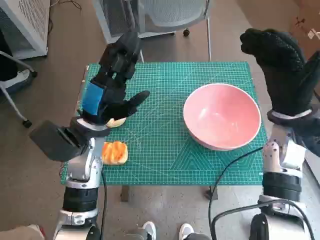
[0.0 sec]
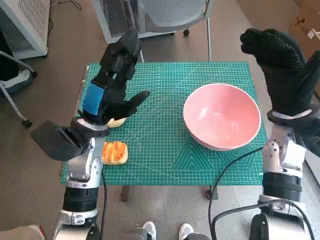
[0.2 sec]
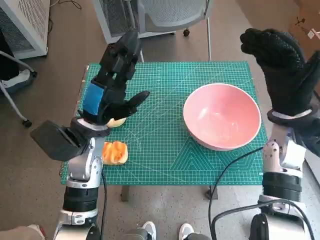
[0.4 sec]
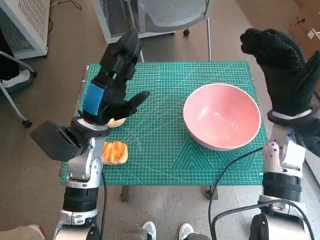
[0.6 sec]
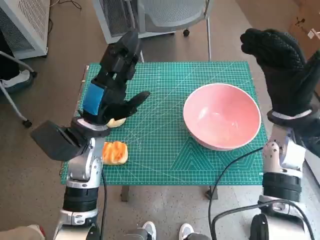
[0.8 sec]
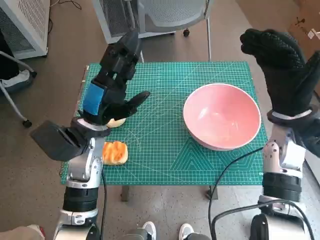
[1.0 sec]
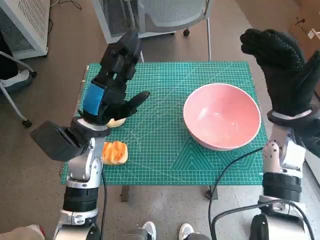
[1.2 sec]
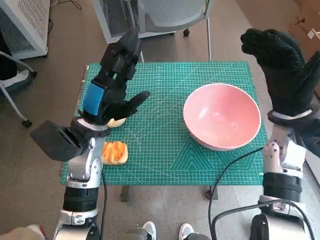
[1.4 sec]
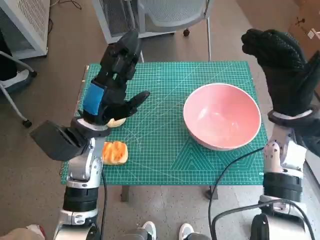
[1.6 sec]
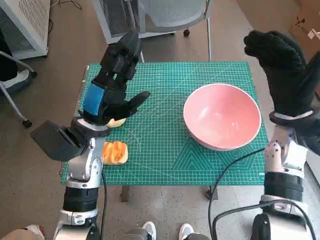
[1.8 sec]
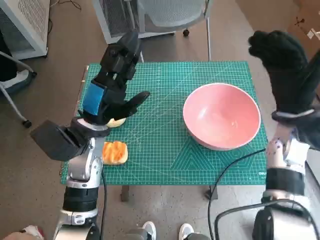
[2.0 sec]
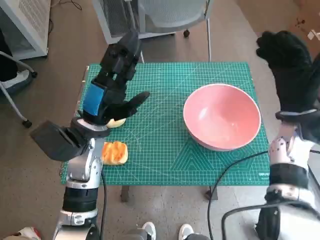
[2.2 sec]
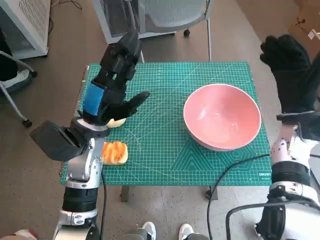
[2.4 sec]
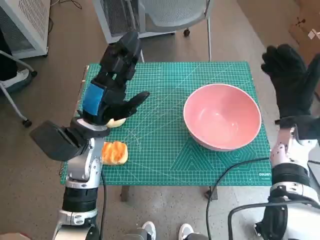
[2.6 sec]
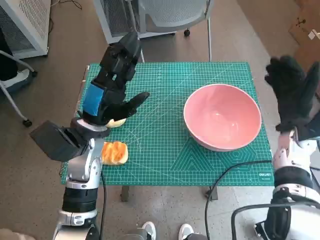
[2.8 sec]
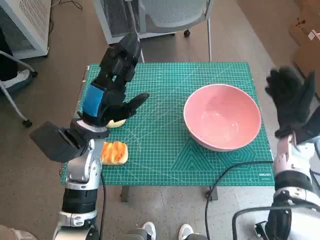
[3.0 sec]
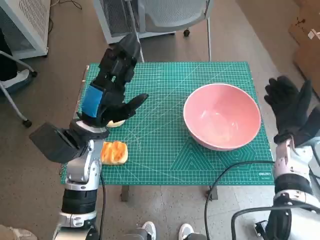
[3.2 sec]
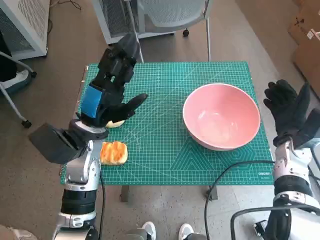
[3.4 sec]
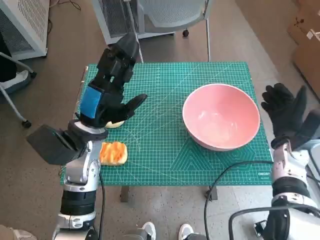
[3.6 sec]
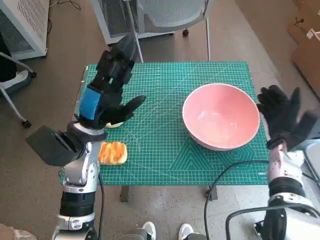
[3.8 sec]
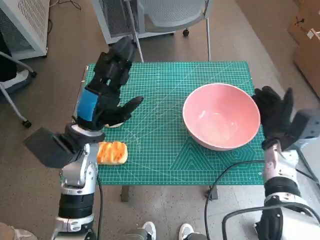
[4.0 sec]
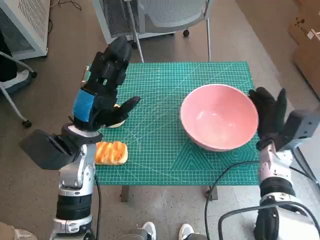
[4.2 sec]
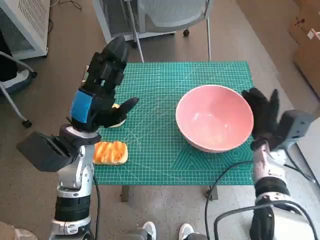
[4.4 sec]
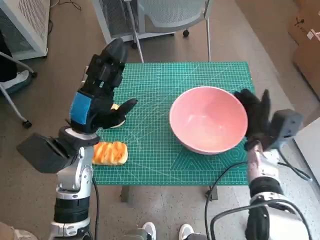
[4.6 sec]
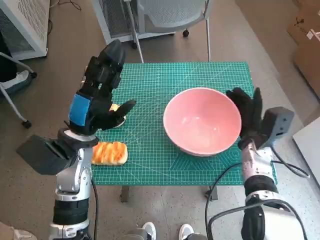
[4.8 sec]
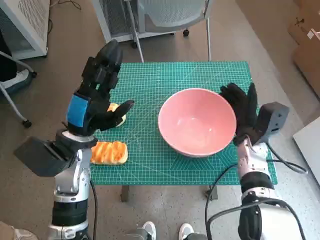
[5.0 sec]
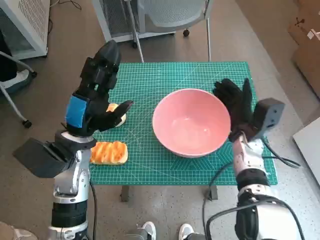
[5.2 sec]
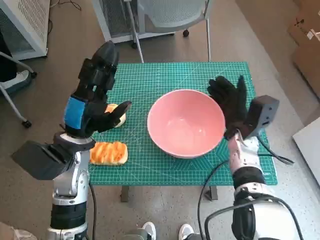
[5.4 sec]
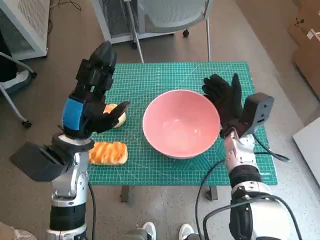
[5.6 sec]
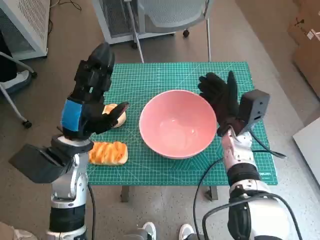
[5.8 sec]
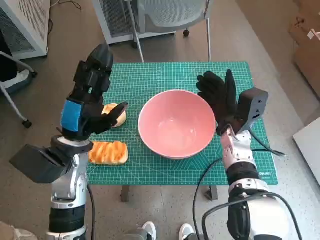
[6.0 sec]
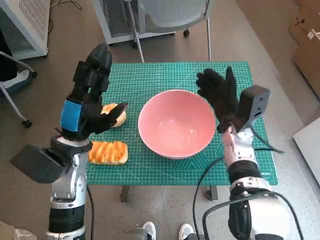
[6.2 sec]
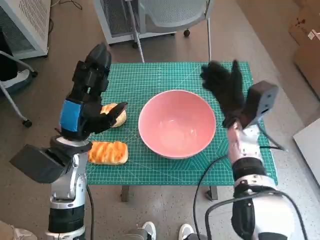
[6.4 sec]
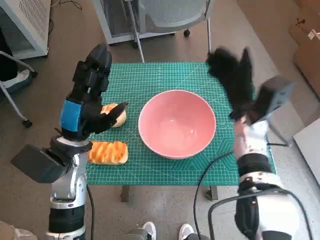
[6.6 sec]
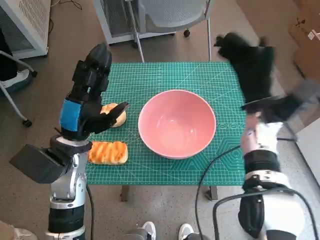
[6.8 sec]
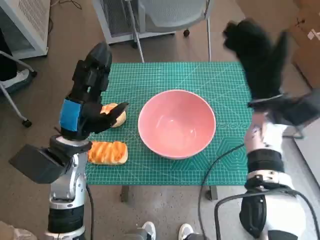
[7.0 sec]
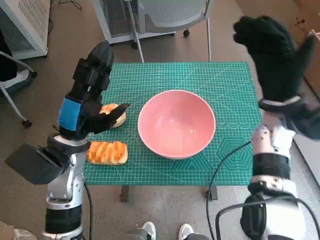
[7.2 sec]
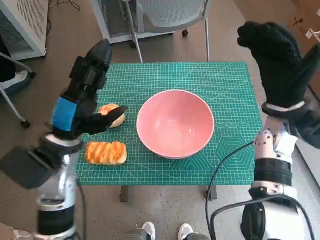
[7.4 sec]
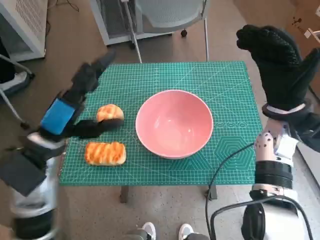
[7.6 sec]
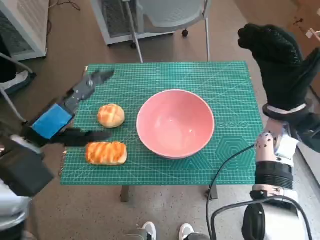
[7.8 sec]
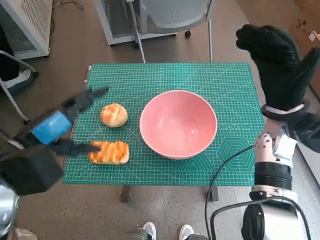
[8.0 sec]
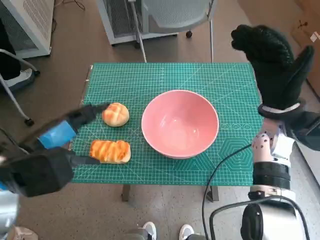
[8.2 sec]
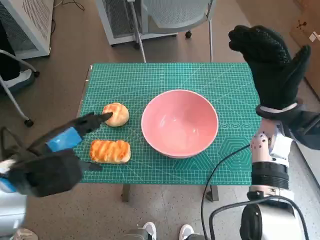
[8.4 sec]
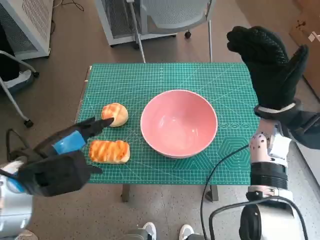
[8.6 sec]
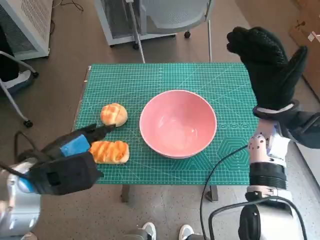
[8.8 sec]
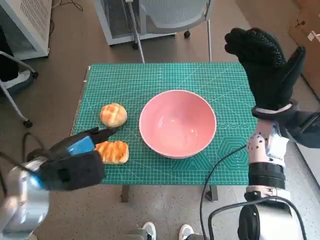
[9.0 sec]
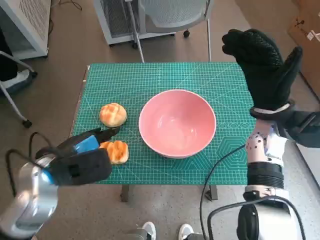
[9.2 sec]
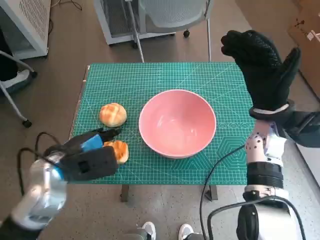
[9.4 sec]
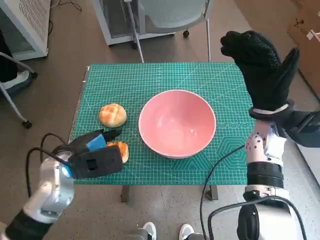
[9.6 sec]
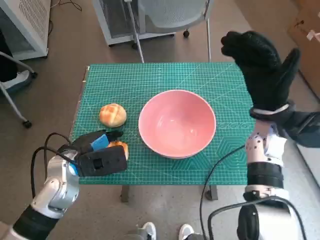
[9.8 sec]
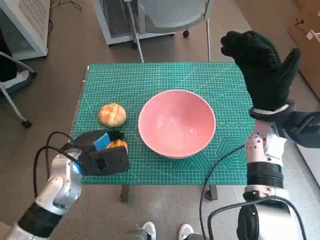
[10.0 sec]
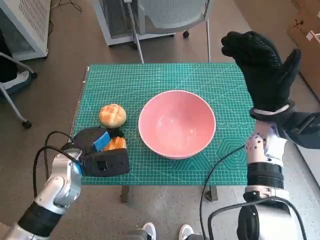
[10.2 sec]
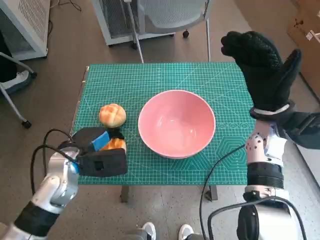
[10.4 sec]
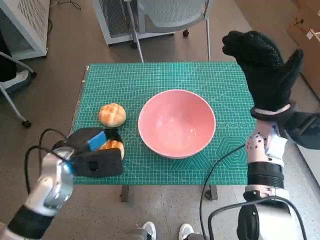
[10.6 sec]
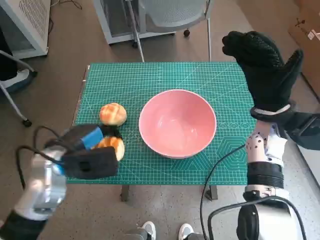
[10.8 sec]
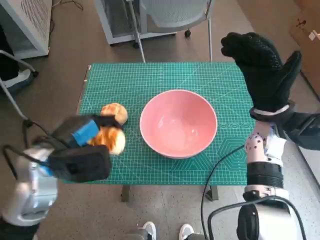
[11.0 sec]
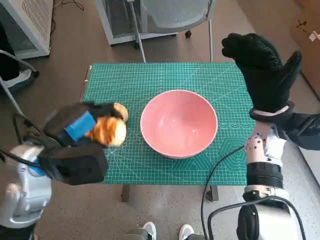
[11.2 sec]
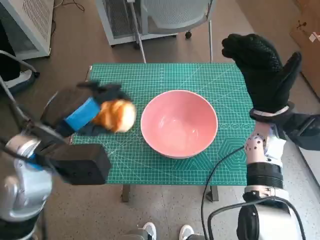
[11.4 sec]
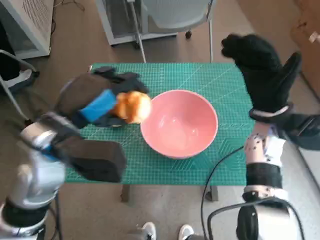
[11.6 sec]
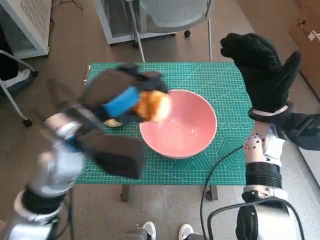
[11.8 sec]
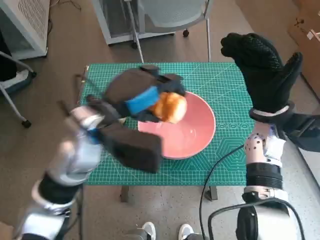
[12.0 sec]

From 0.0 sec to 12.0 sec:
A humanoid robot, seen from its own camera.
Step, from 0.0 sec to 6.2 sec: Move the pink bowl to the center of table with right hand.
Step, from 6.4 sec to 10.2 sec: Grasp the long bread with left hand.
From 1.6 sec to 3.0 sec: The right hand heads downward, covering approximately 10 cm.
From 3.0 sec to 4.4 sec: The right hand moves roughly 5 cm.
From 4.4 sec to 6.0 sec: The right hand heads to the left, covering approximately 10 cm.
From 6.0 sec to 7.6 sec: The right hand travels upward and to the right by some 10 cm.
From 9.0 sec to 10.4 sec: The left hand moves downward, some 5 cm.
From 10.4 sec to 12.0 sec: The left hand shifts roughly 15 cm upward and to the right.

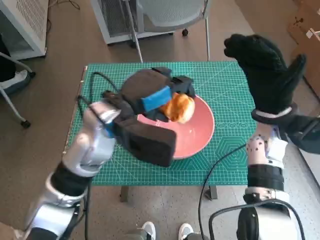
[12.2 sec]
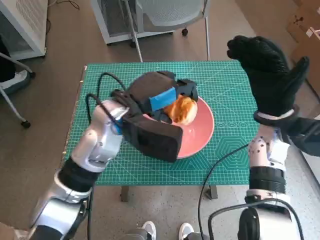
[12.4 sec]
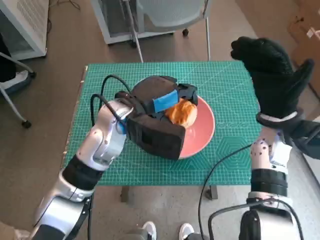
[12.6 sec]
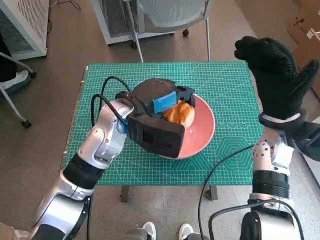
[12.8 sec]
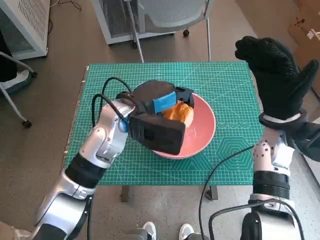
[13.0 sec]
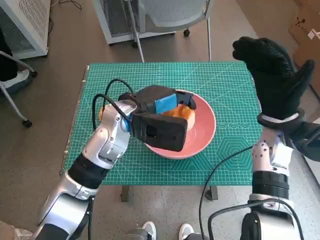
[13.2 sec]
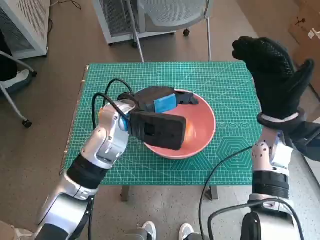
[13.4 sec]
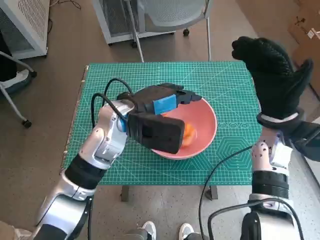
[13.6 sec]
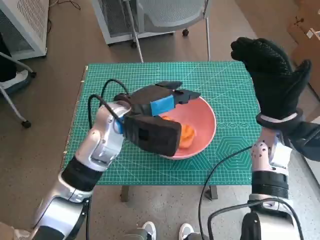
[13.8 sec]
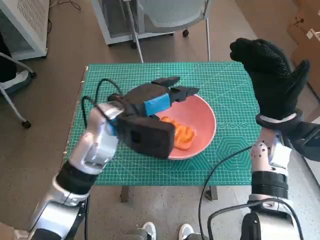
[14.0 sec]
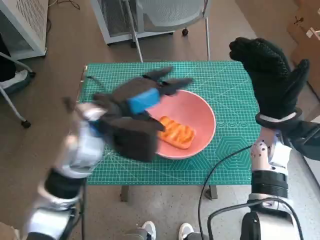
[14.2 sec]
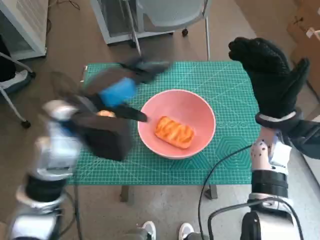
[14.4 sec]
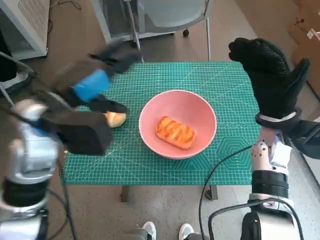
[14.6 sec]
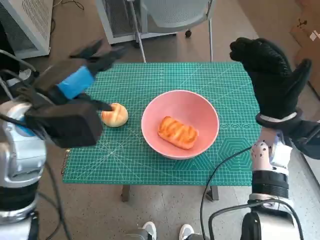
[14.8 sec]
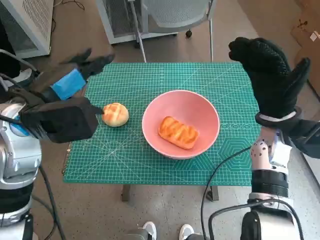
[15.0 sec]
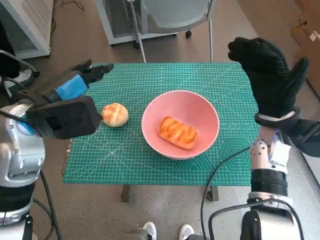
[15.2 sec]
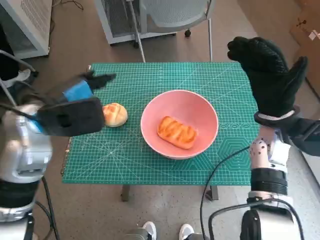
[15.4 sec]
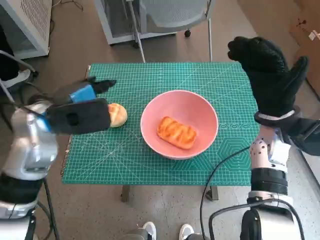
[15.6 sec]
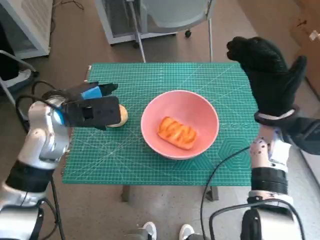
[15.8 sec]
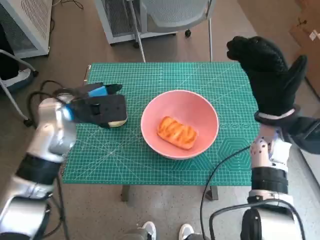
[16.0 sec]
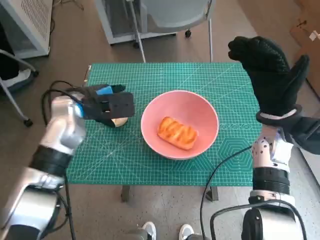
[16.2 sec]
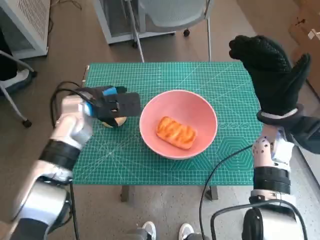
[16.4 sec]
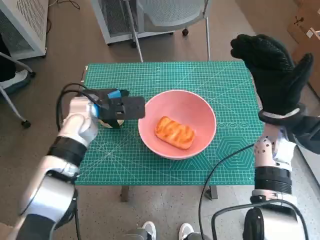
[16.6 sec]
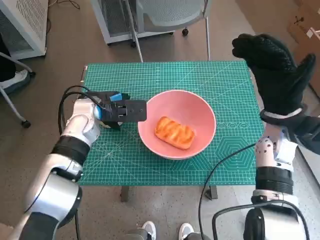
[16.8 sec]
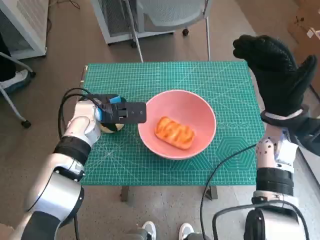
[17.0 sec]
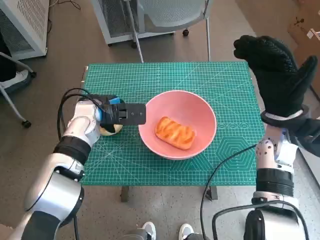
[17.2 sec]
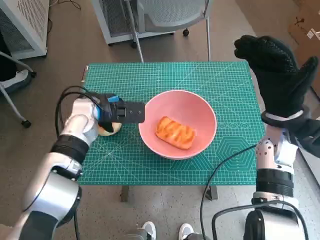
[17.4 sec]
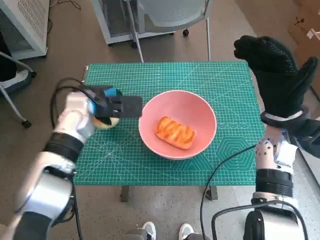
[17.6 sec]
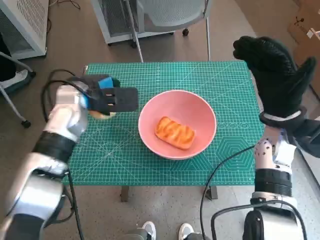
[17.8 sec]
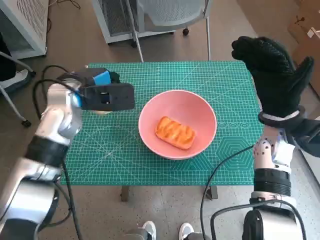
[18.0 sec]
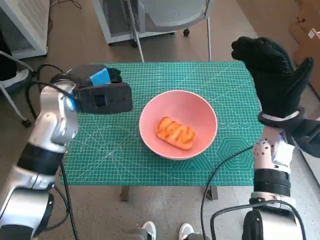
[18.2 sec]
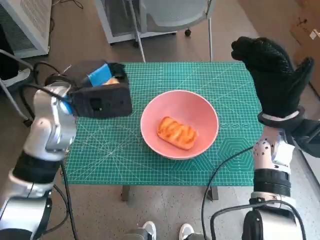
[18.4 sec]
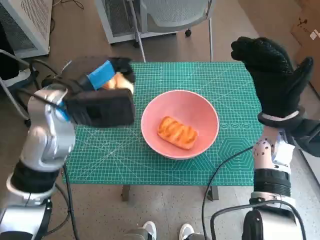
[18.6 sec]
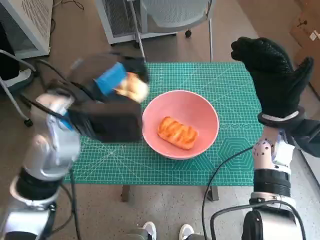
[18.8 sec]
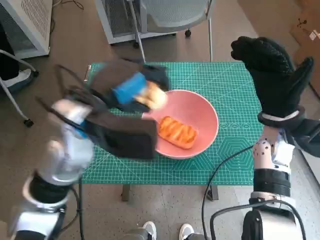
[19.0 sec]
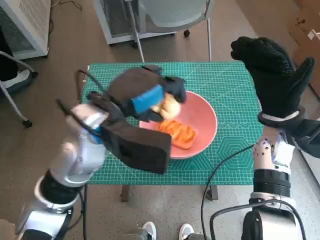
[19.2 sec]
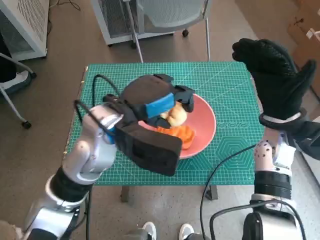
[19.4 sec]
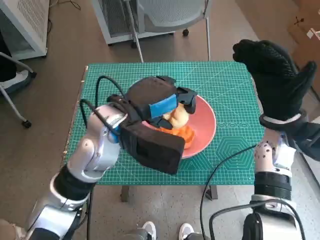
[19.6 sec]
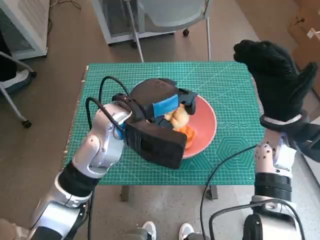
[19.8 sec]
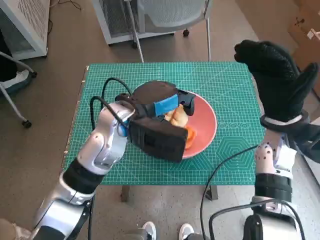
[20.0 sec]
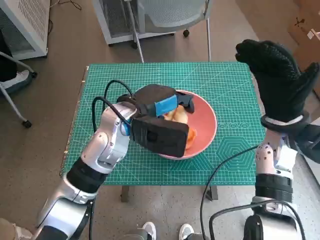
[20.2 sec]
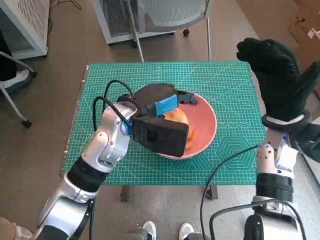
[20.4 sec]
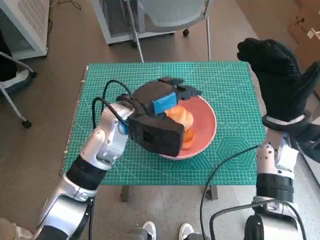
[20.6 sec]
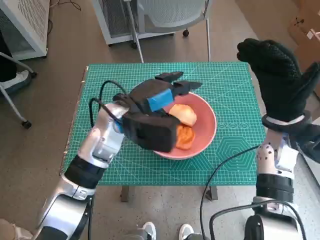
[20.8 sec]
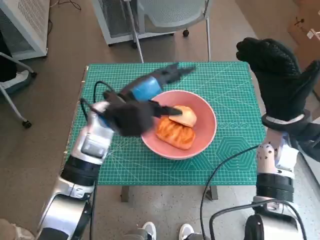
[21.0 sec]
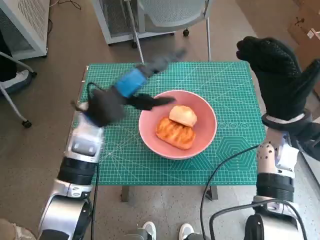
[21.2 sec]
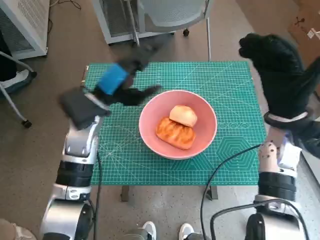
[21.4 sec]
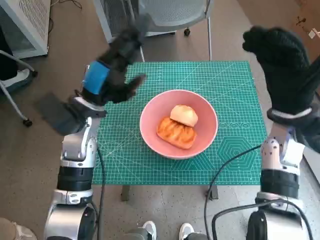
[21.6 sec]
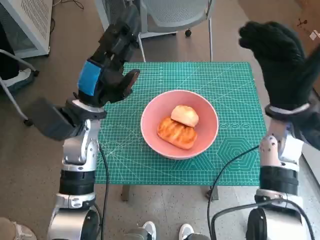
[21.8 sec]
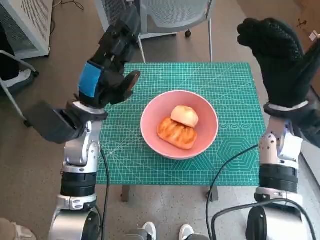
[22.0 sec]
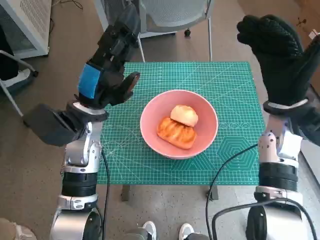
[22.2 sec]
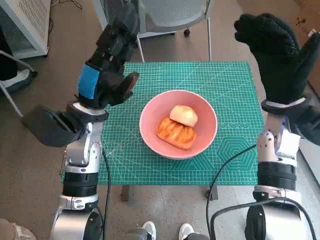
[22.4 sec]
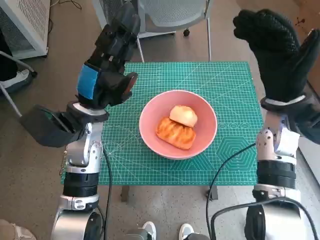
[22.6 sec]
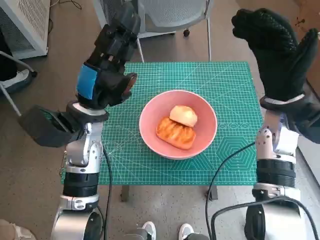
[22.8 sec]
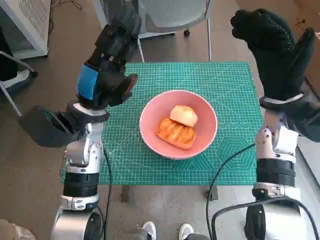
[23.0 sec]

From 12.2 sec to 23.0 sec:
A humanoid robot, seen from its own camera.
Step, from 13.8 sec to 17.2 sec: Grasp the round bread with left hand.
Step, from 17.4 sec to 20.4 sec: Place the round bread in pink bowl with left hand.
From 13.8 sec to 15.2 sec: The left hand heads to the left and upward, covering some 15 cm.
From 15.2 sec to 16.8 sec: The left hand moves downward and forward, roughly 15 cm.
From 16.8 sec to 18.4 sec: The left hand goes approximately 10 cm upward.
From 18.4 sec to 20.0 sec: The left hand is displaced to the right by approximately 10 cm.
From 20.0 sec to 21.4 sec: The left hand travels to the left by about 5 cm.
